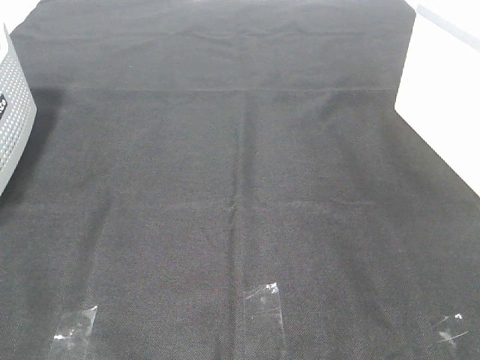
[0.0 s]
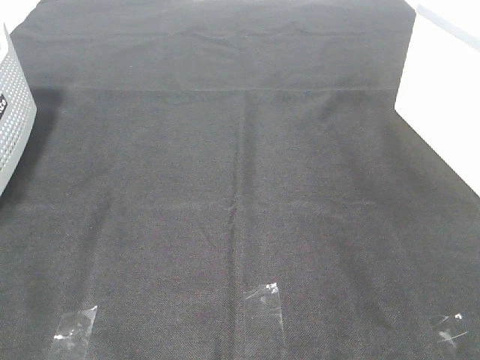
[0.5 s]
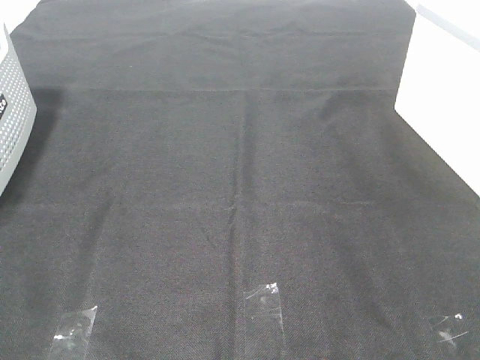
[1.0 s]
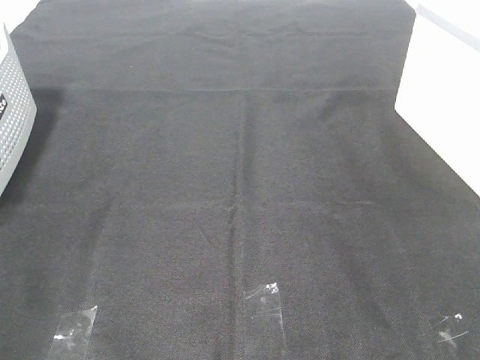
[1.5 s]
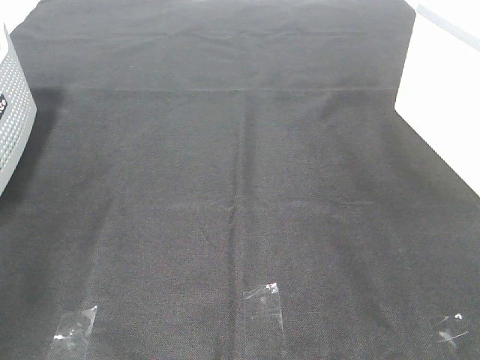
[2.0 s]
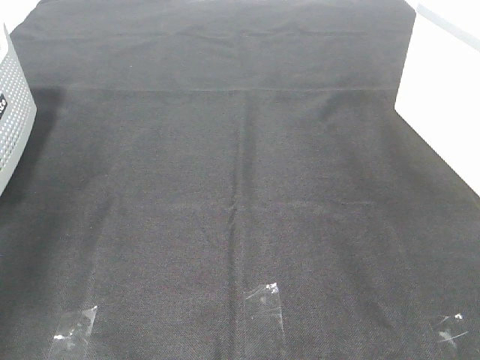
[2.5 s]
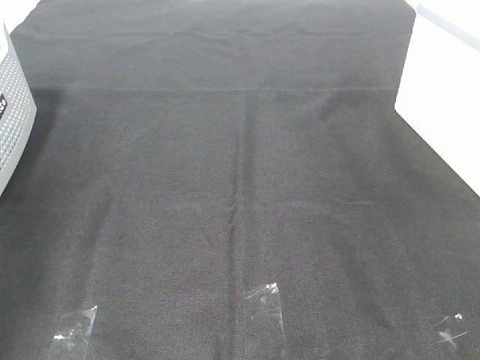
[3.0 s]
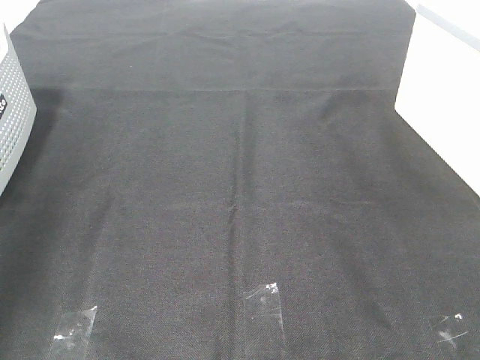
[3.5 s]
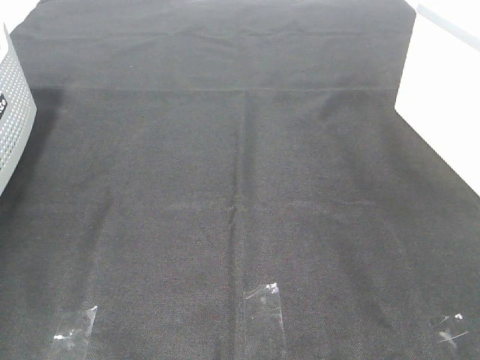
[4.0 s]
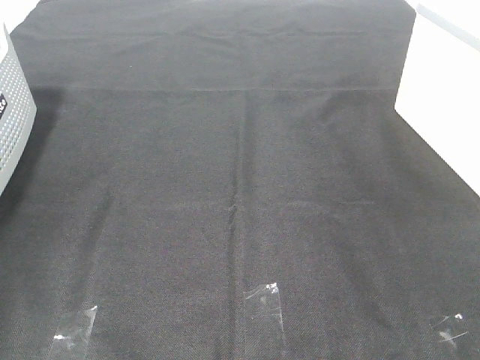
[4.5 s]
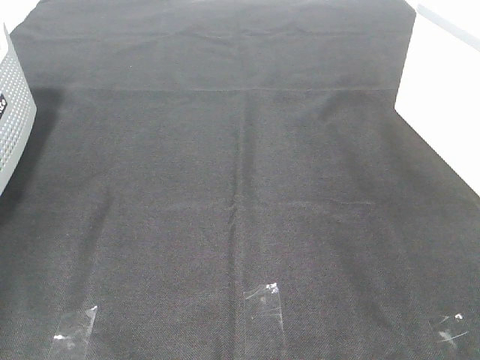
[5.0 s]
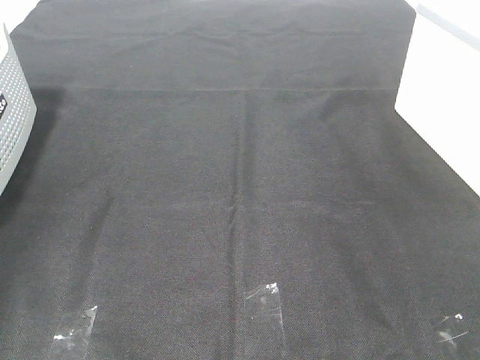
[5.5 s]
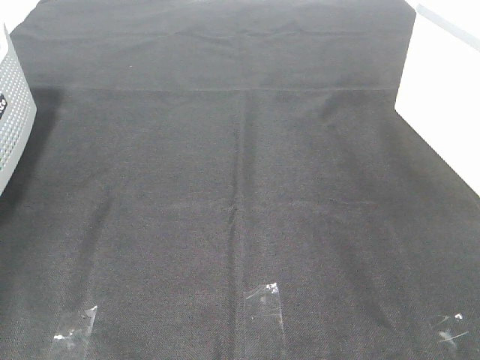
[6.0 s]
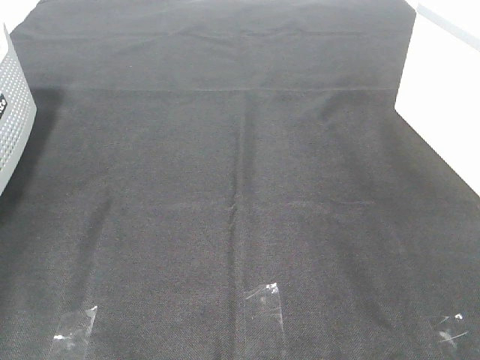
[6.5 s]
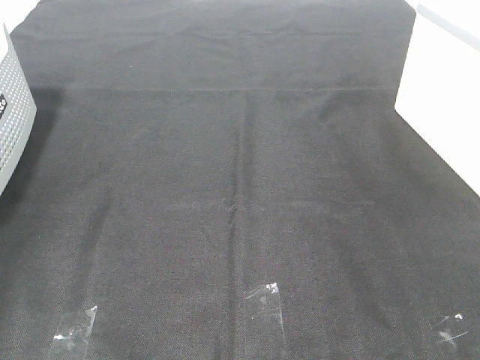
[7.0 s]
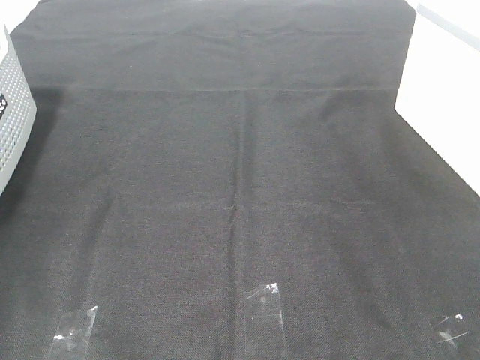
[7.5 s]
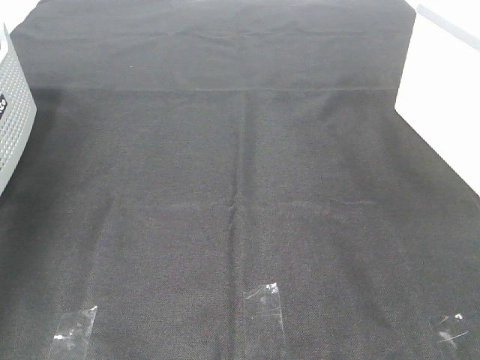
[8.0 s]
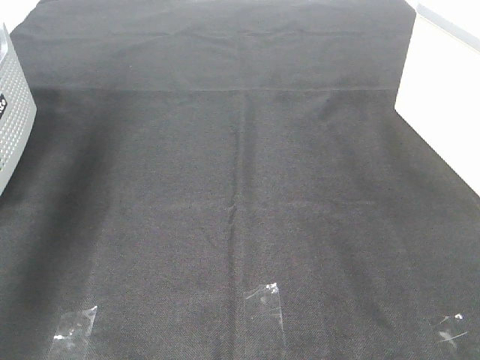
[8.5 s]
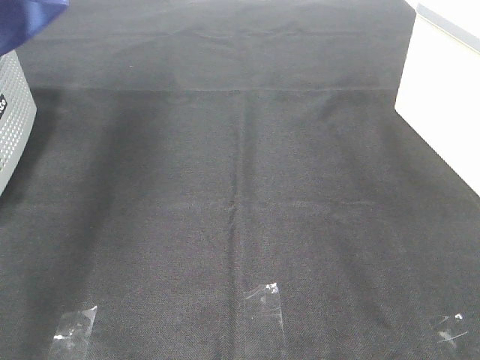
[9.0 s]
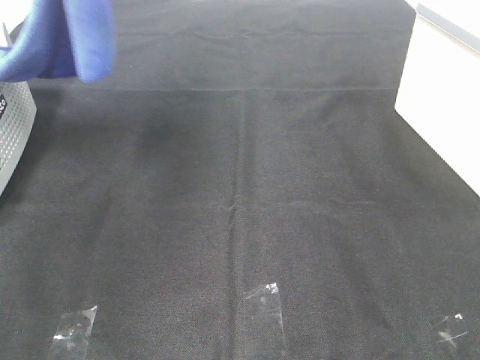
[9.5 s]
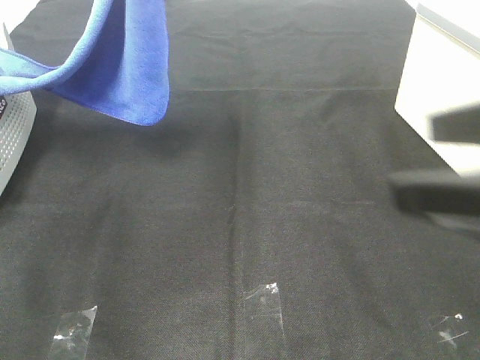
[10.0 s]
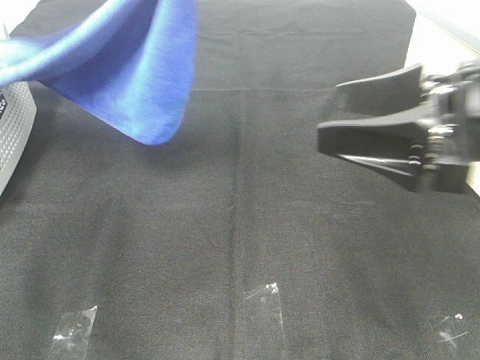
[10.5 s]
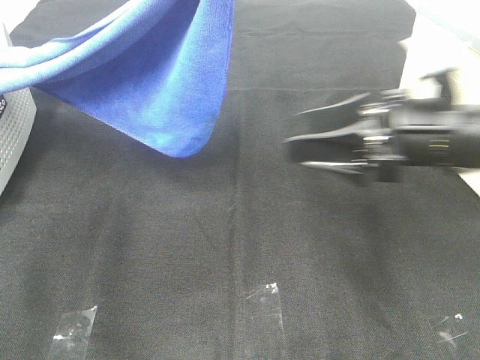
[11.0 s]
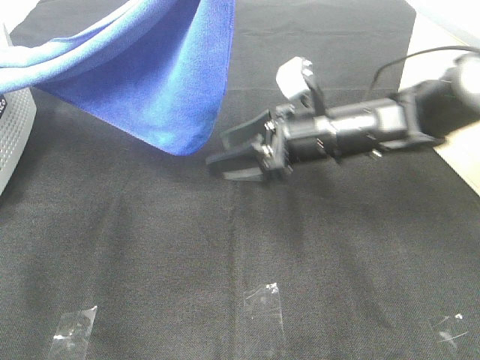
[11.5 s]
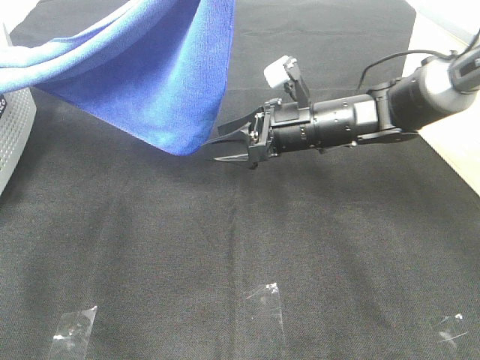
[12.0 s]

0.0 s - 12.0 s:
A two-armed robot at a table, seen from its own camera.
Task of the whole recording: Remove the towel and place it.
6.0 s - 8.0 s: The left gripper travels upward and to the right by about 20 cm, and closes up.
8.0 s - 10.0 s: The right gripper goes some 15 cm forward and to the left. Meanwhile the left gripper is displaced to the right by about 25 cm.
10.0 s - 12.0 s: The left gripper ends up roughly 5 cm from where it was. Meanwhile the right gripper travels forward, downward and to the left by roughly 35 cm.

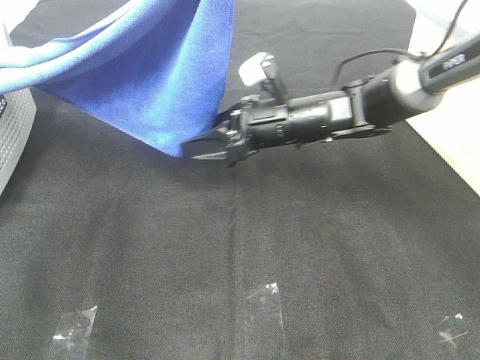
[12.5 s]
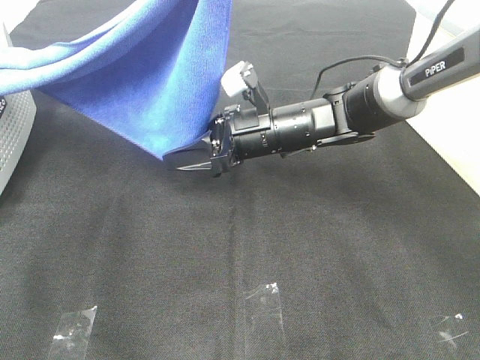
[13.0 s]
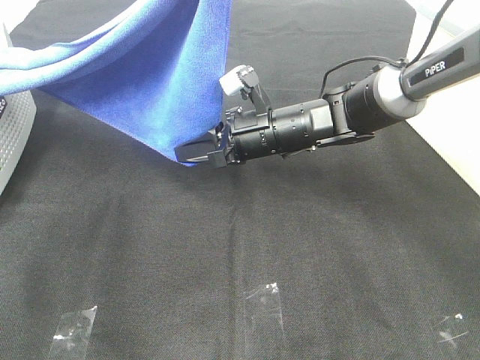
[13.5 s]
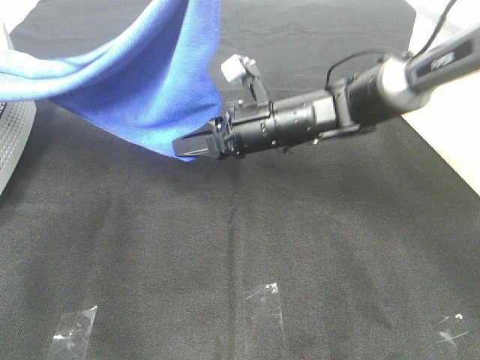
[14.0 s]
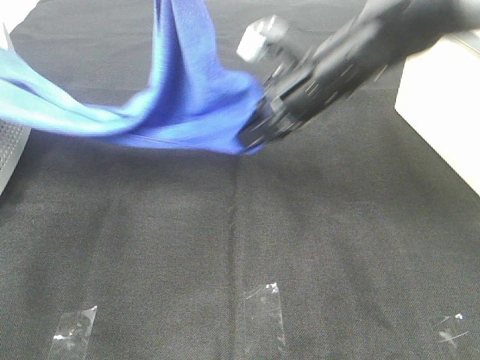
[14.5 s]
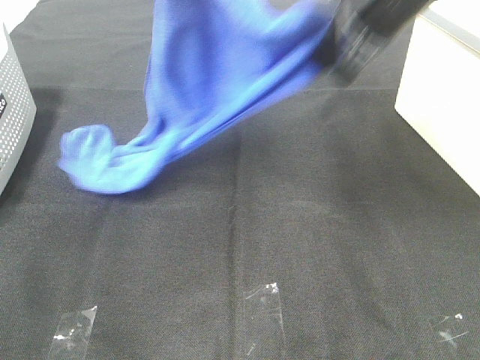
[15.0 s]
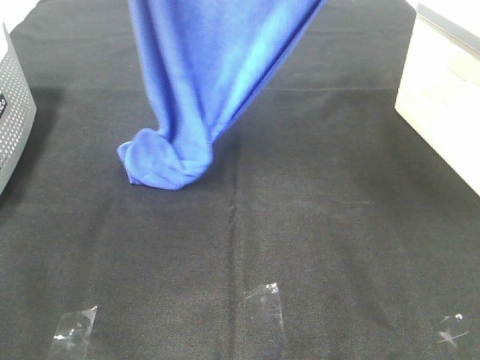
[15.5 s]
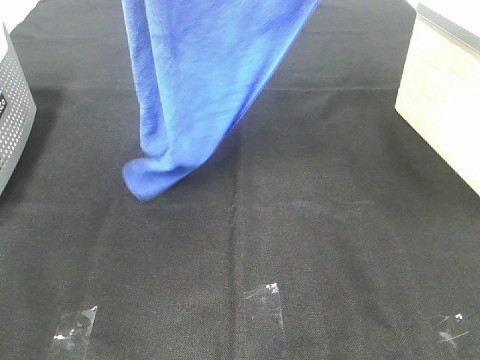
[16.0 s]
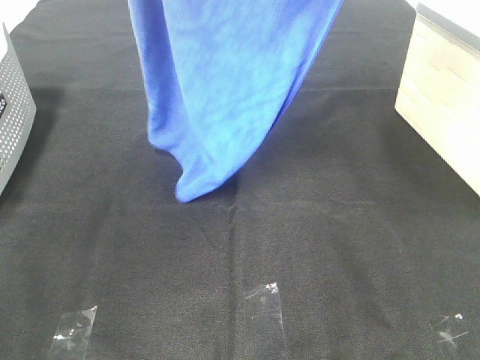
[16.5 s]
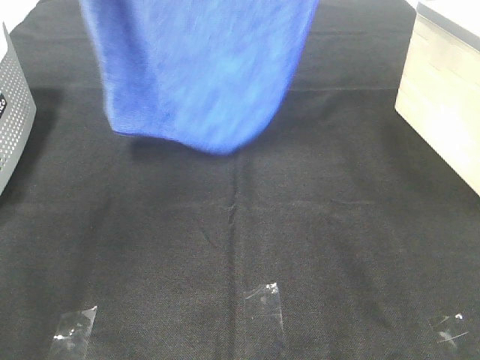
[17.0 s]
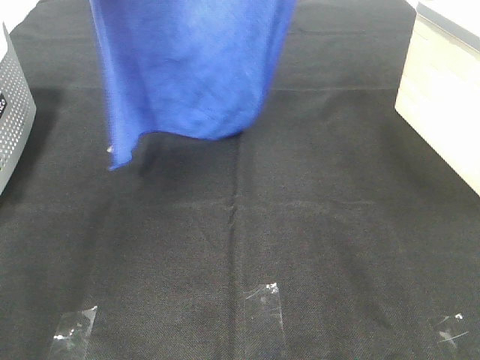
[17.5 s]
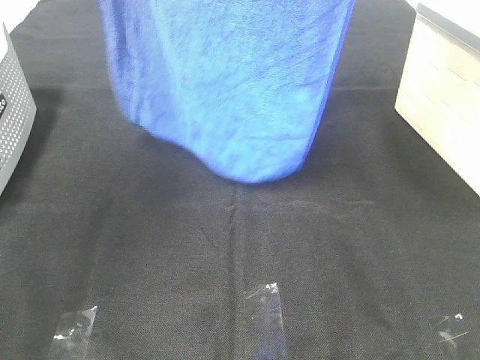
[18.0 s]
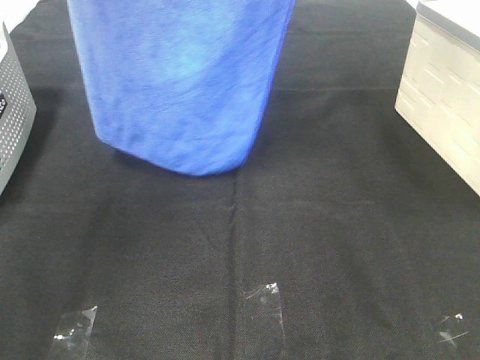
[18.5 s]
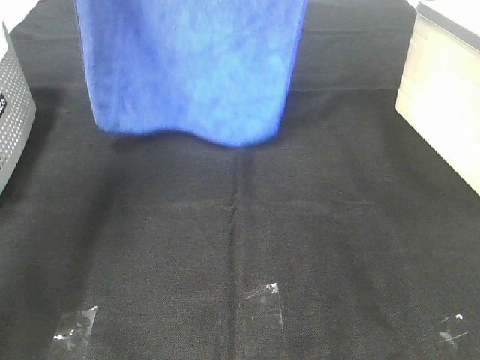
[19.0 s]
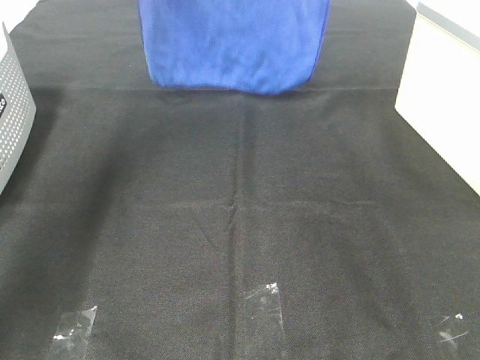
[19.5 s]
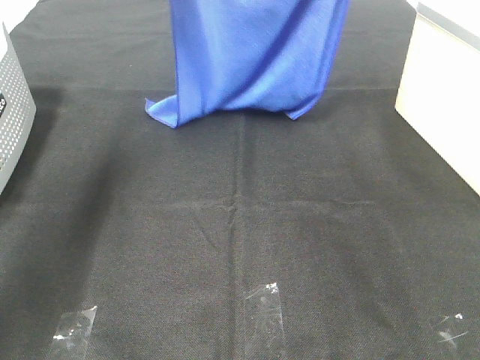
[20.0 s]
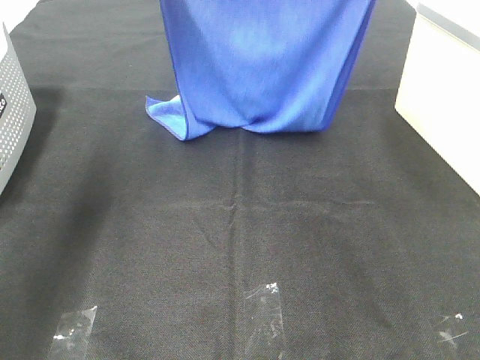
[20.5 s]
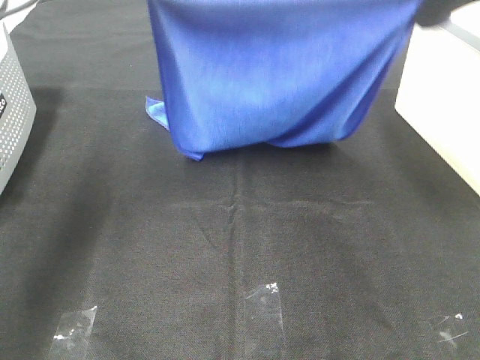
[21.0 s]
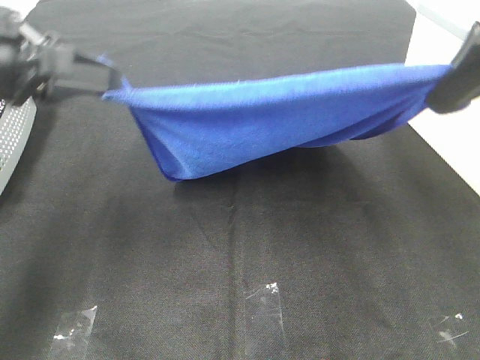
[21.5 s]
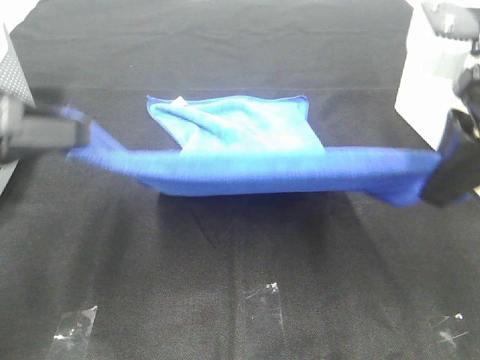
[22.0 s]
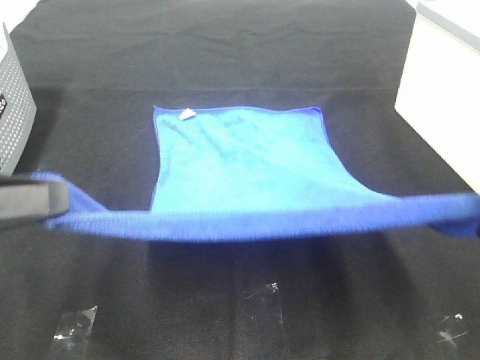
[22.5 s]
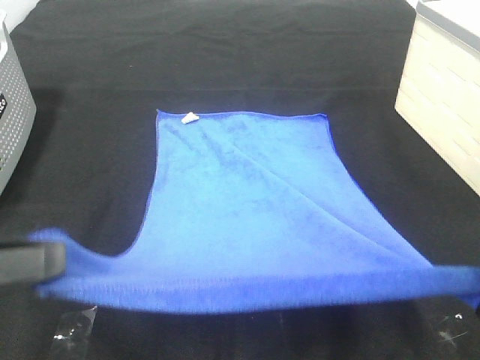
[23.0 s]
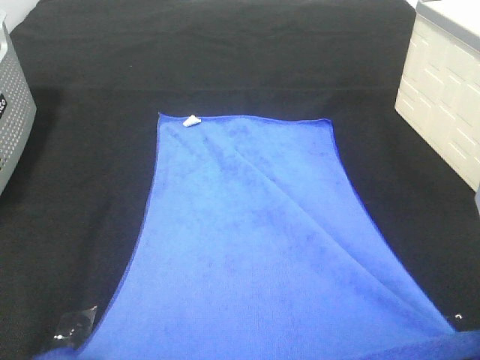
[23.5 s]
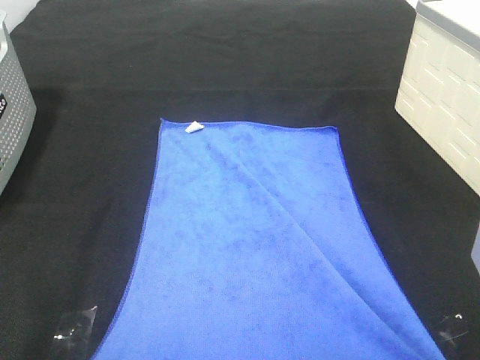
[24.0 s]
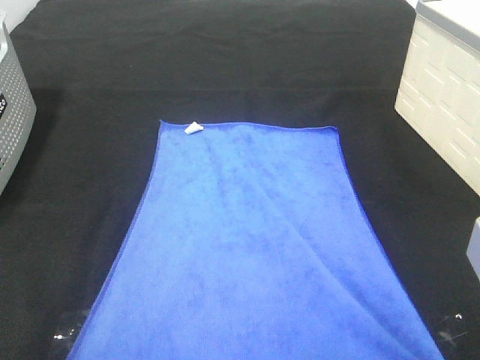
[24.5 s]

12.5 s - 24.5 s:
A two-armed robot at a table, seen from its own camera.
Task of the whole recording: Remove the towel and place it.
Step, 14.5 s - 21.0 s: Left hand: spread the blue towel flat on the table.
Step, 14.5 s - 21.0 s: Right hand: spread the blue towel flat on the table.
12.5 s - 14.5 s: The right gripper heads upward, covering roughly 10 cm, and closes.
14.5 s - 16.5 s: The left gripper moves upward and to the left, some 10 cm. The right gripper shifts approximately 30 cm upward.
18.5 s - 20.5 s: The left gripper shifts some 20 cm downward. Meanwhile the right gripper is displaced downward and to the right by approximately 15 cm.
20.5 s - 22.5 s: Both grippers travel together backward, some 25 cm.
22.5 s - 24.5 s: The right gripper moves downward, about 10 cm, while the left gripper moves downward and backward, some 10 cm.

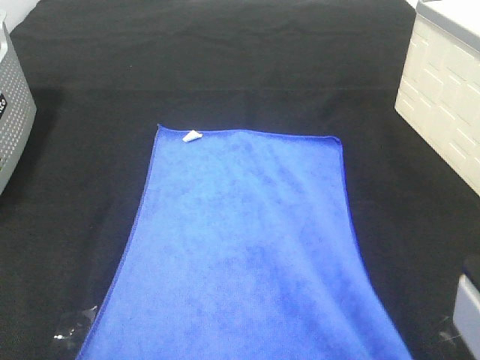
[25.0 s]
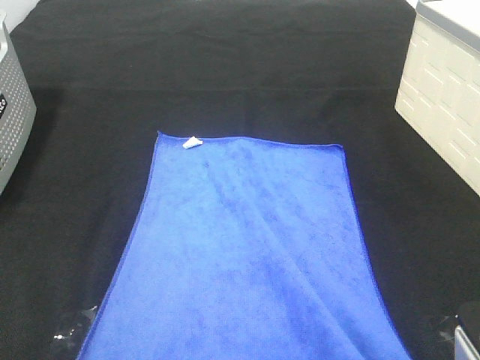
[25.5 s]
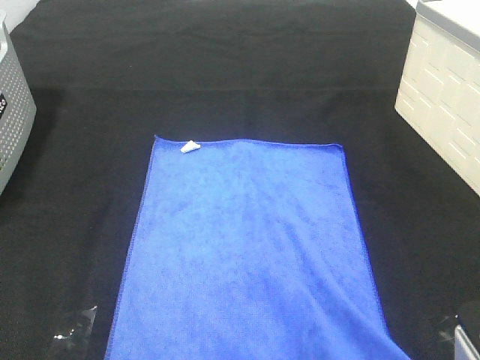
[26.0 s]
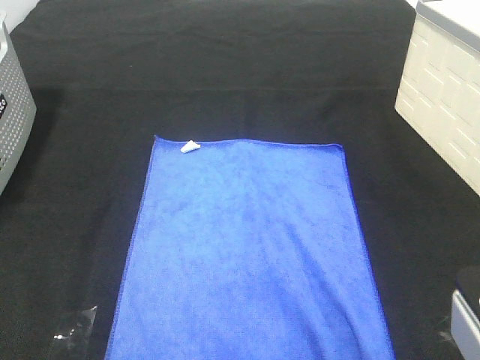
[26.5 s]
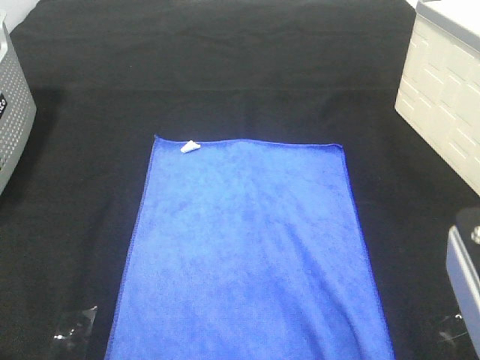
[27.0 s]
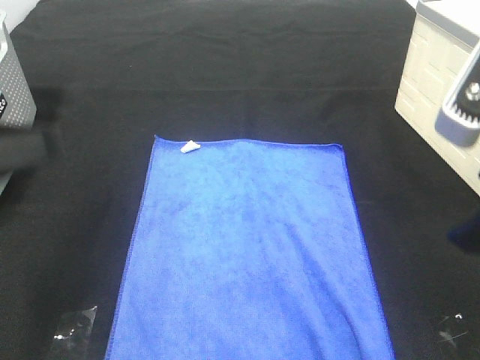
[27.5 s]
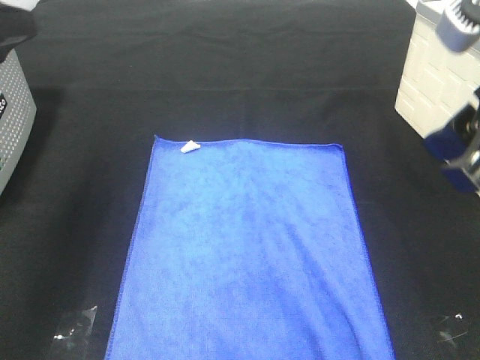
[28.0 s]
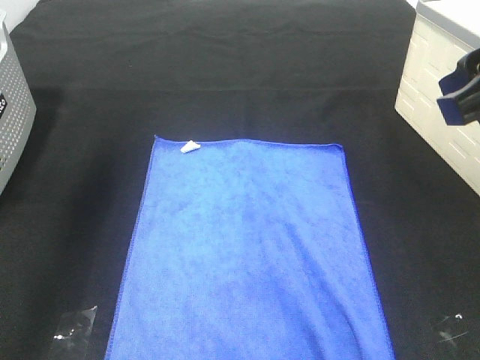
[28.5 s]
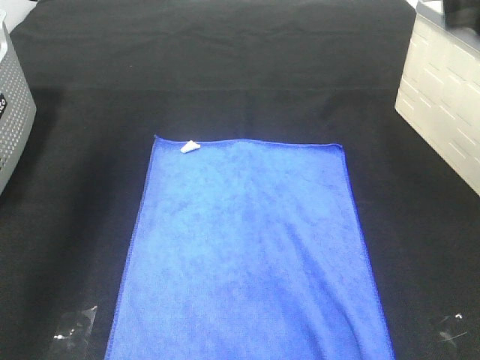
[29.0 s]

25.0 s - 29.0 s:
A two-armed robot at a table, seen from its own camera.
Task of the whole recording: Remove the towel and place it.
25.0 s - 27.0 s: The left gripper shifts by some 5 cm, and opens its fingers, while the right gripper opens its fingers.
27.0 s - 29.0 s: The left gripper travels forward and upward by roughly 30 cm, while the right gripper goes roughly 15 cm upward and forward.
